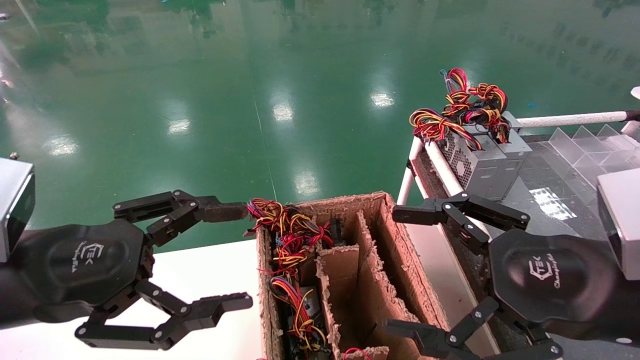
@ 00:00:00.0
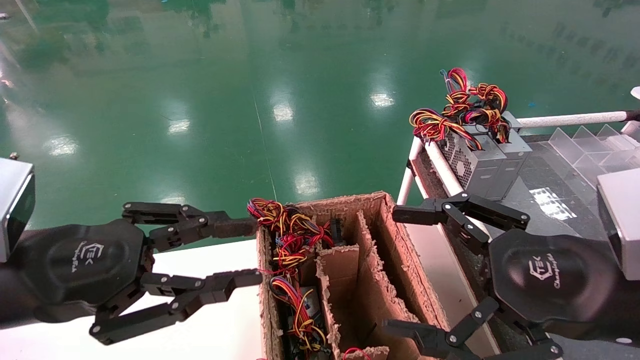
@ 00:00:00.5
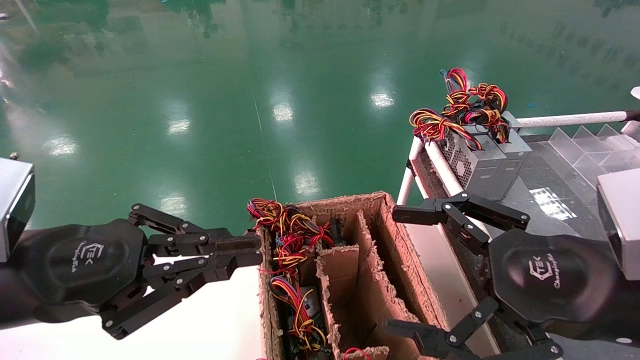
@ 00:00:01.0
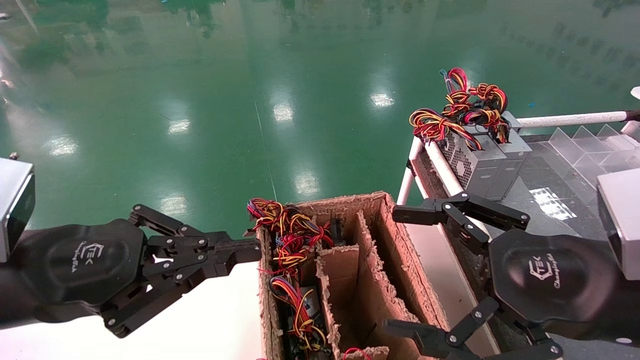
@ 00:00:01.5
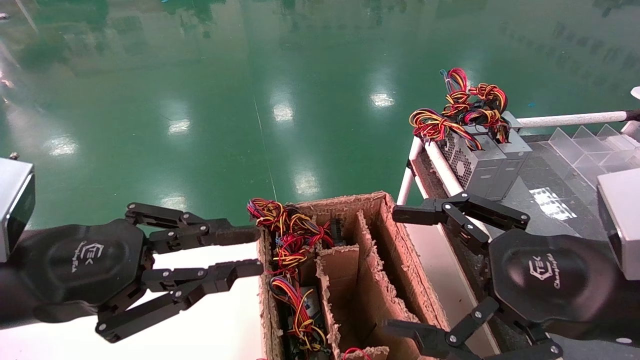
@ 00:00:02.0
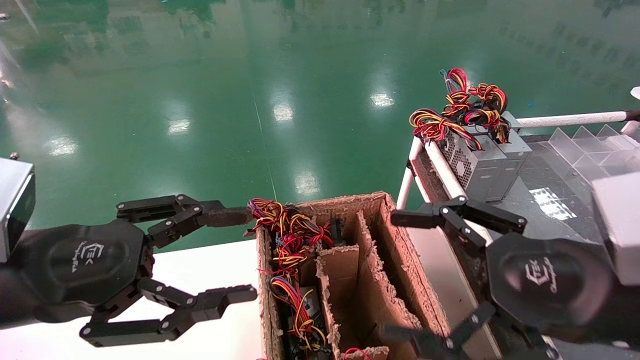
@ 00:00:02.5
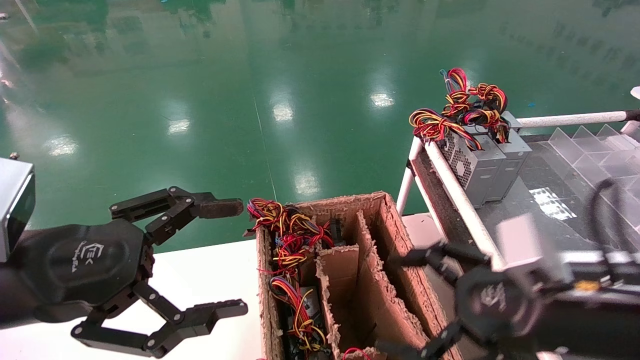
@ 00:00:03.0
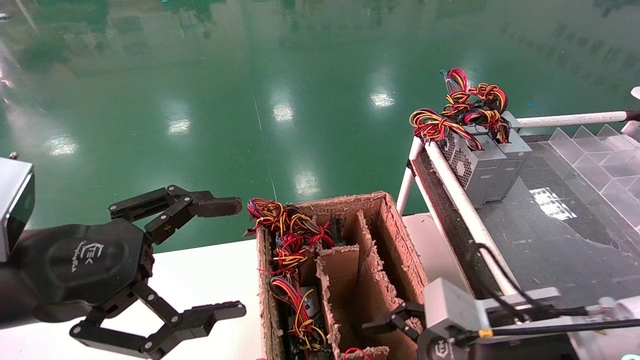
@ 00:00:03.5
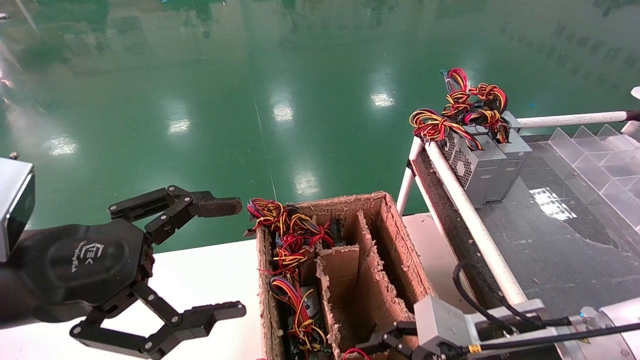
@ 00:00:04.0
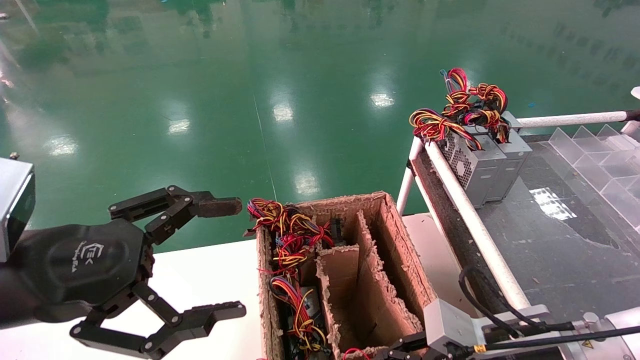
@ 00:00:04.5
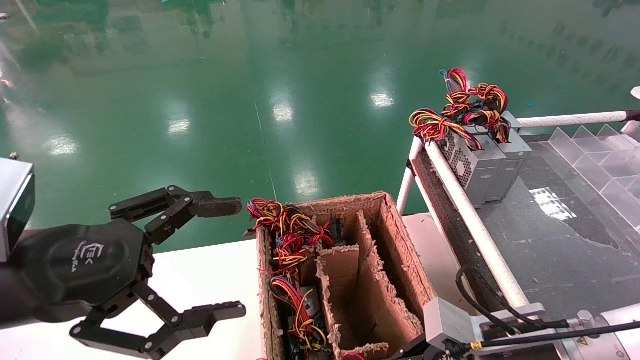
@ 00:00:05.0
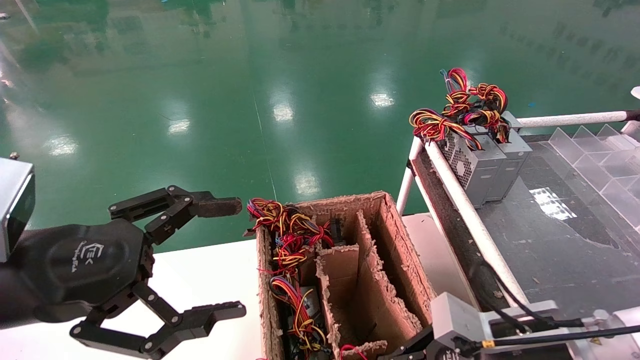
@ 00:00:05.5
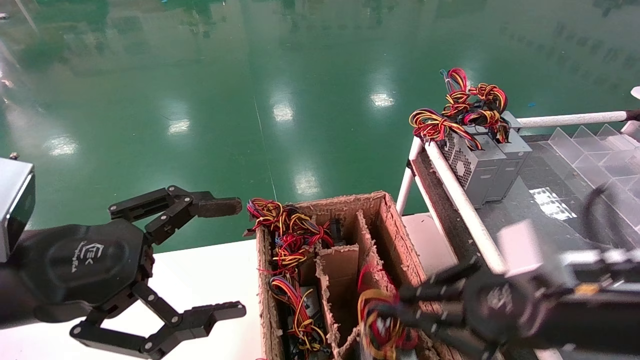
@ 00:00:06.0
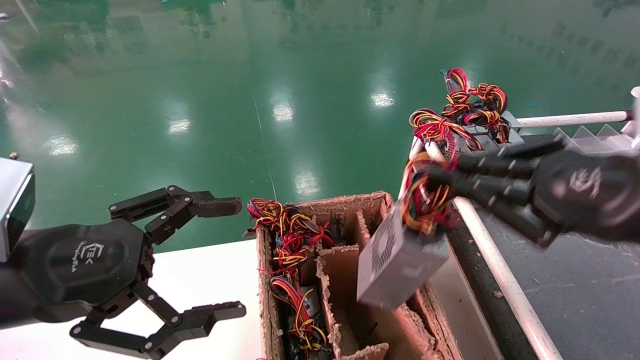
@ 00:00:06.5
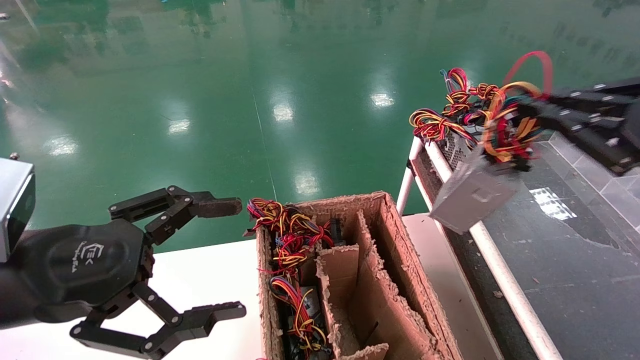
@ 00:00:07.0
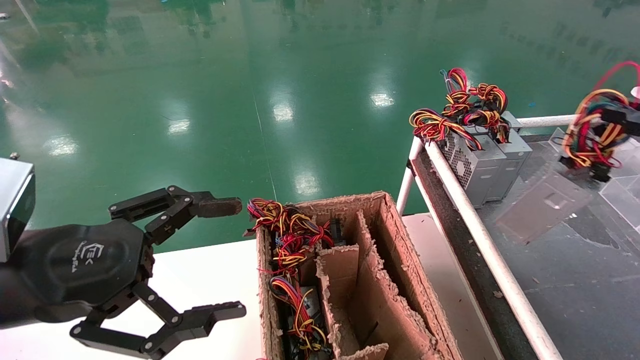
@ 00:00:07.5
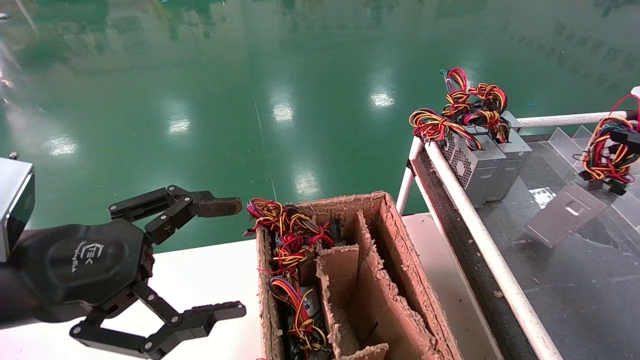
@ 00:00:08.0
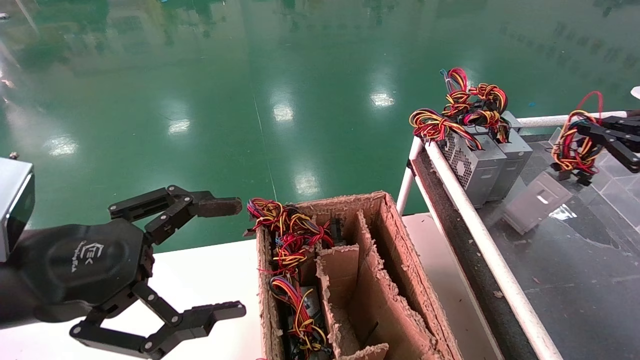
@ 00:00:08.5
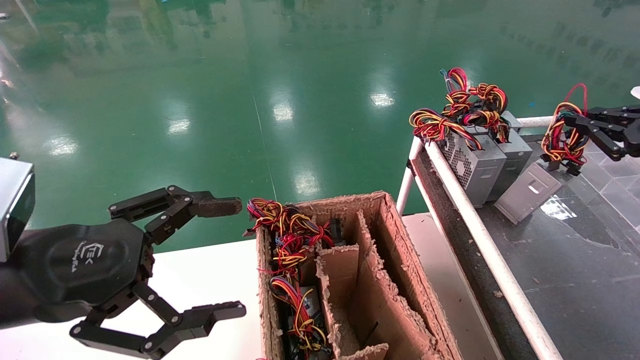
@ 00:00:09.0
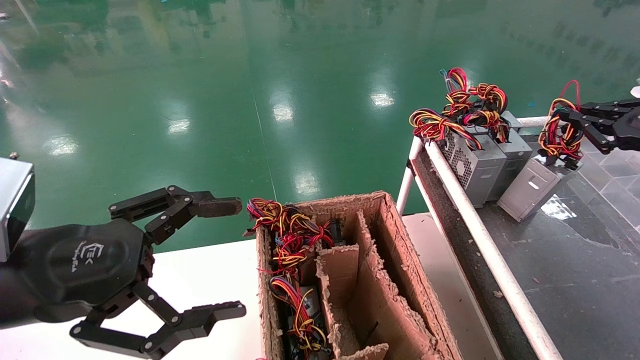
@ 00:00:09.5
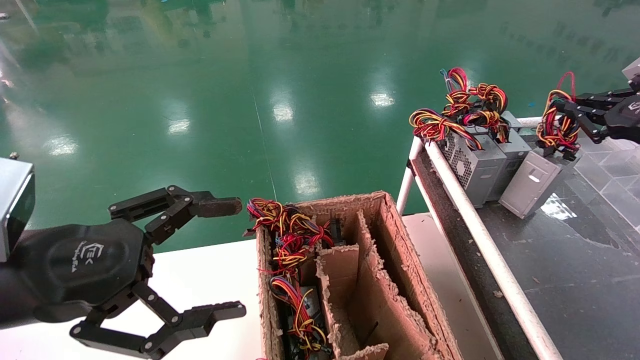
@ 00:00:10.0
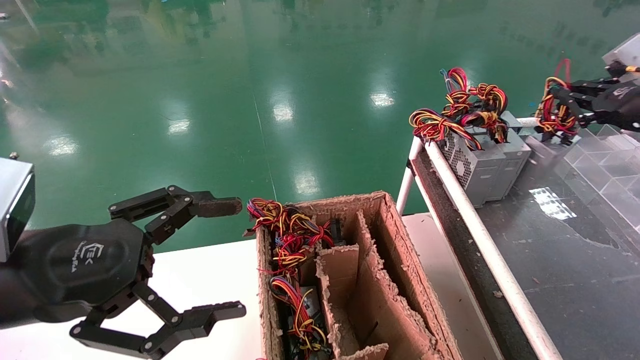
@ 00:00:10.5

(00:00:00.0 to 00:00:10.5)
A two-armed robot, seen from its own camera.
Step, 00:00:01.5 - 00:00:05.0: Grab and lift the power supply from the large box.
00:00:00.0 - 00:00:02.0: The left gripper closes.
00:00:02.0 - 00:00:04.0: The left gripper opens its fingers, while the right gripper is displaced downward and forward by some 15 cm.
00:00:04.0 - 00:00:06.5: The right gripper heads upward and to the right, covering roughly 20 cm, and closes.
00:00:06.5 - 00:00:08.5: The right gripper travels to the right and forward by approximately 20 cm.
00:00:08.5 - 00:00:10.5: The right gripper heads forward, covering roughly 10 cm.

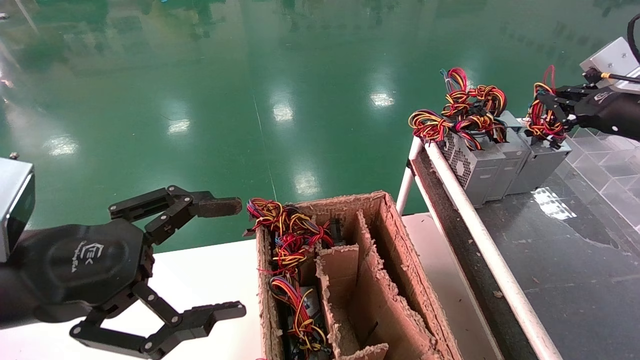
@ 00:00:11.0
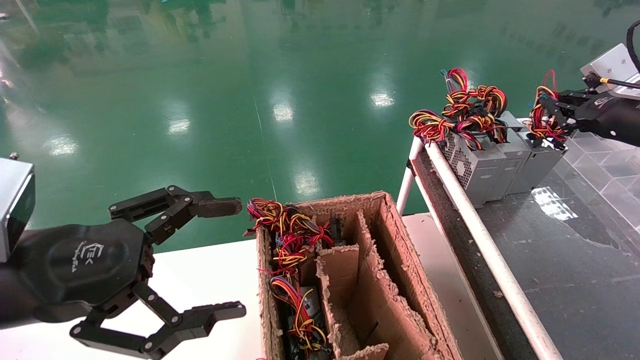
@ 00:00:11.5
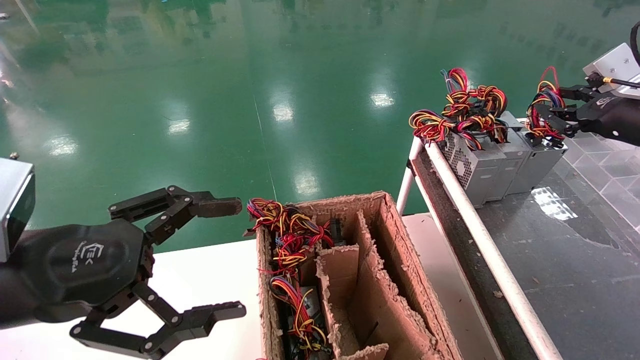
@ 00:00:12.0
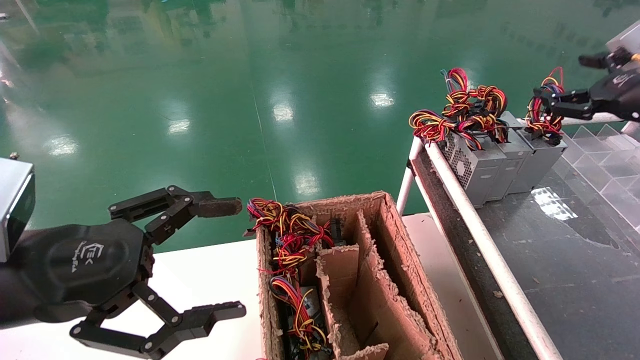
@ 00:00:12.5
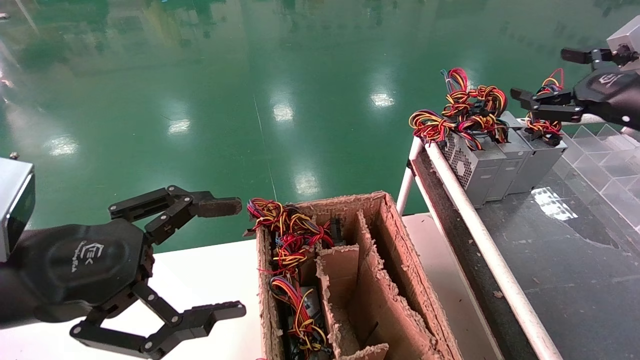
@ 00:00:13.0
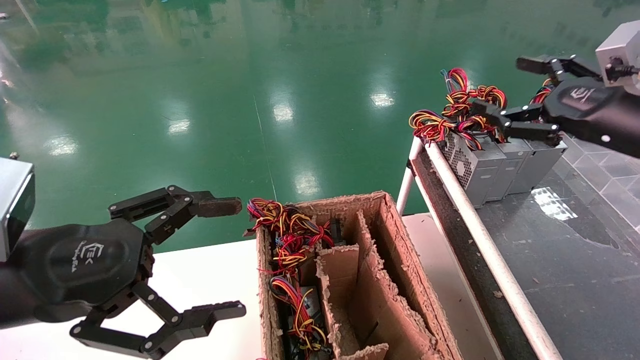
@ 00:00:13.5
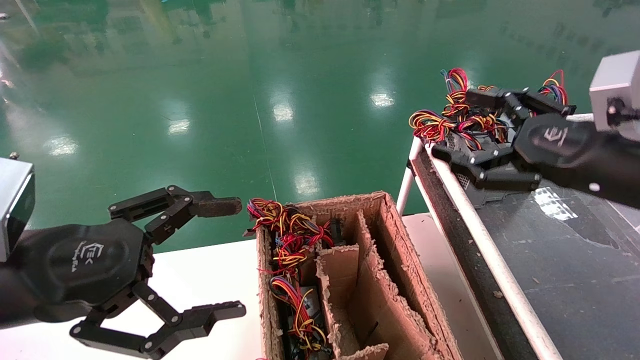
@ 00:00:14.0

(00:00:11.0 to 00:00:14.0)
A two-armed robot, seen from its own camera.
00:00:11.0 - 00:00:12.5: The right gripper opens.
00:00:12.5 - 00:00:14.0: The right gripper goes roughly 15 cm to the left, backward and downward, and opens.
